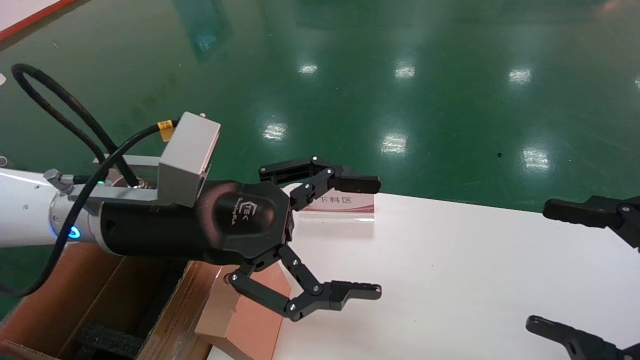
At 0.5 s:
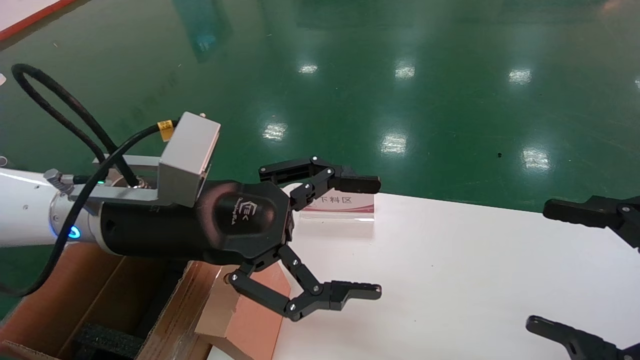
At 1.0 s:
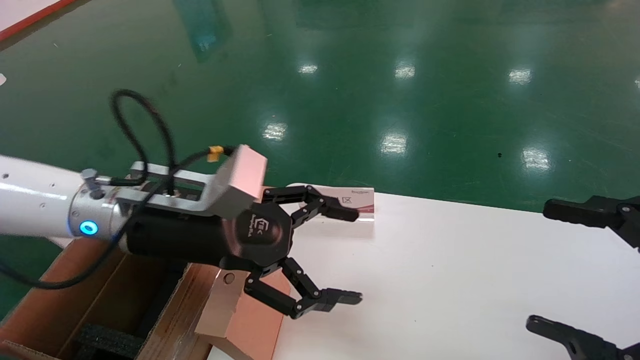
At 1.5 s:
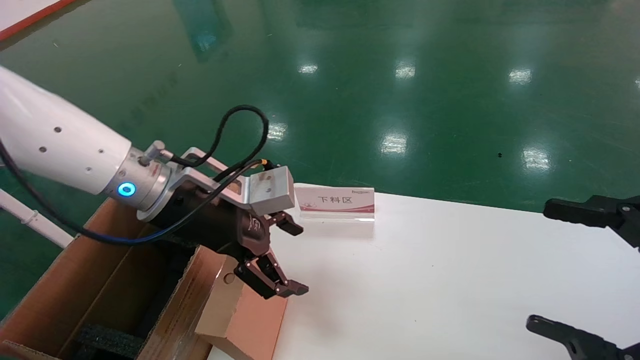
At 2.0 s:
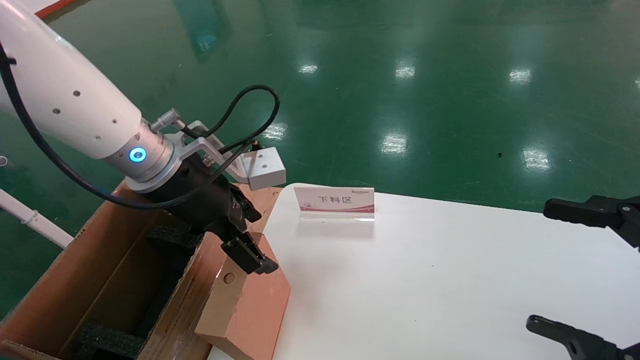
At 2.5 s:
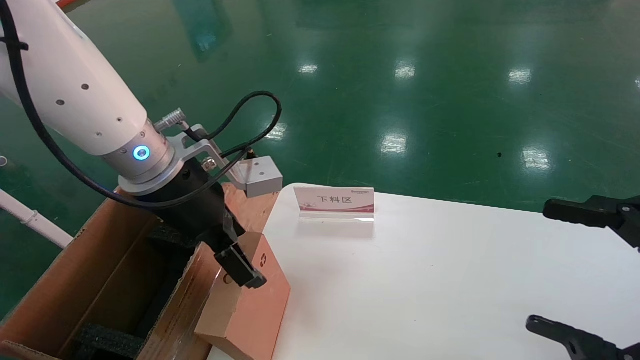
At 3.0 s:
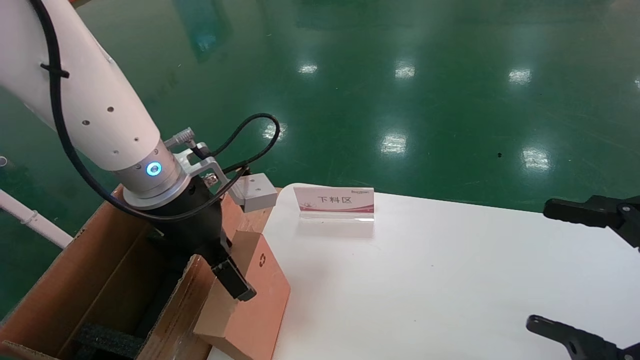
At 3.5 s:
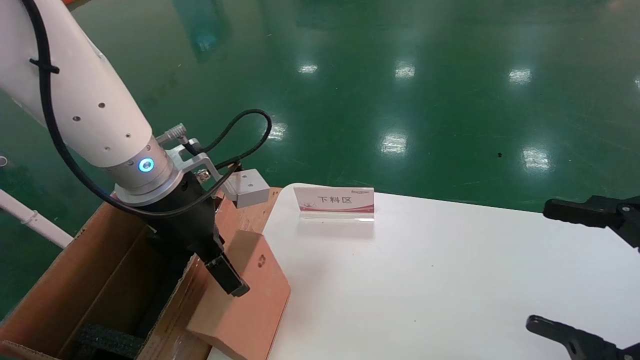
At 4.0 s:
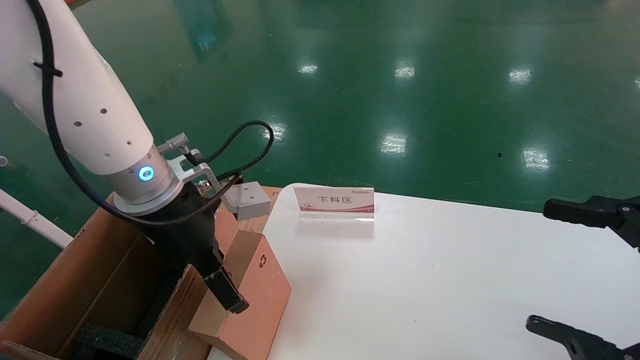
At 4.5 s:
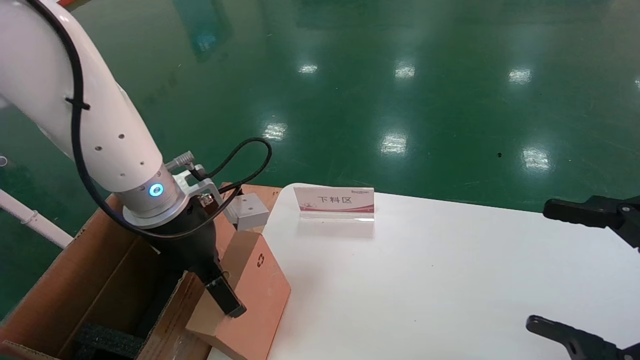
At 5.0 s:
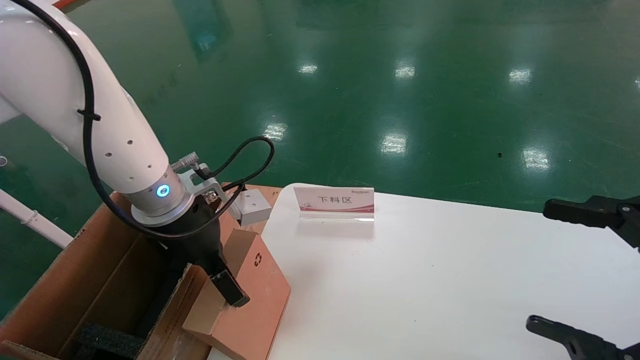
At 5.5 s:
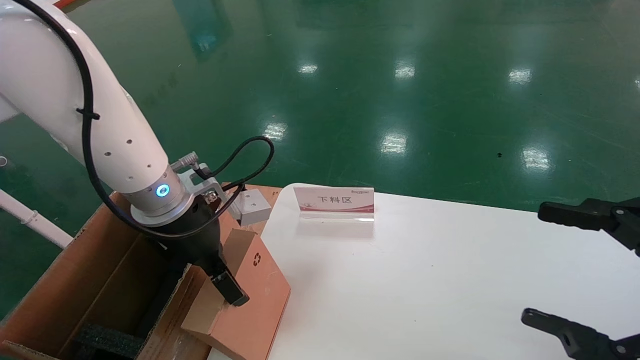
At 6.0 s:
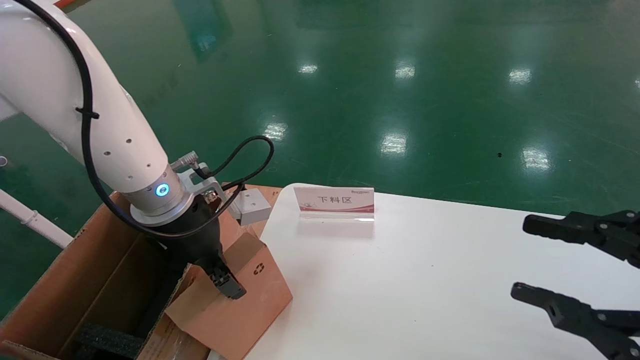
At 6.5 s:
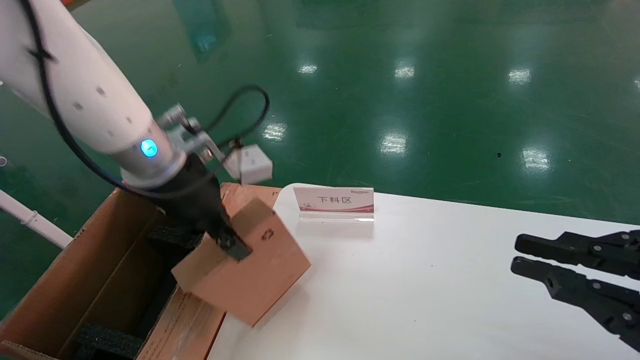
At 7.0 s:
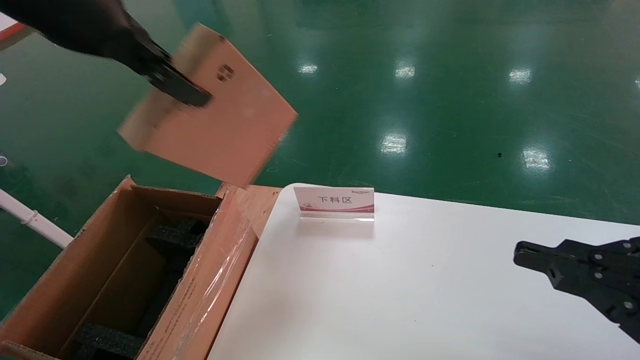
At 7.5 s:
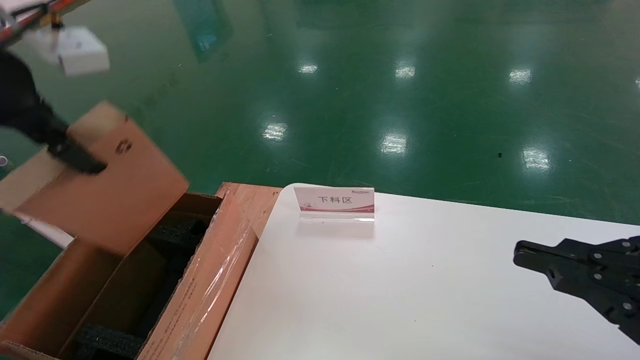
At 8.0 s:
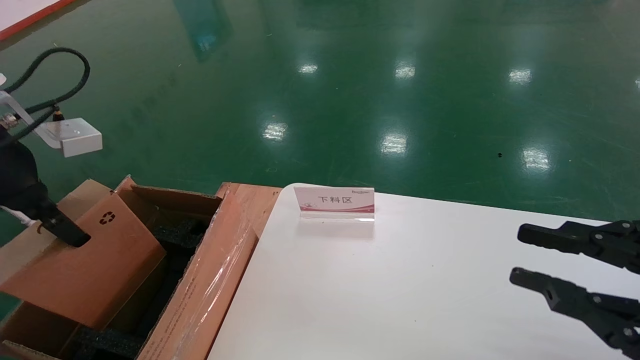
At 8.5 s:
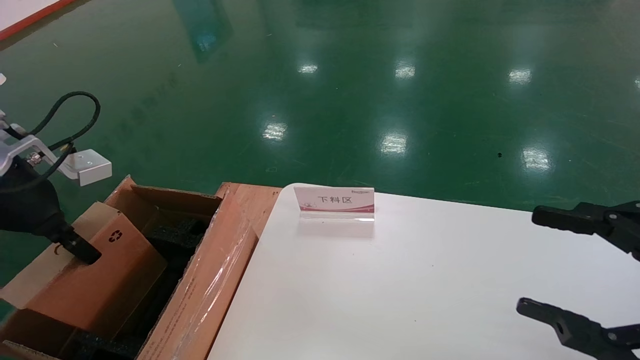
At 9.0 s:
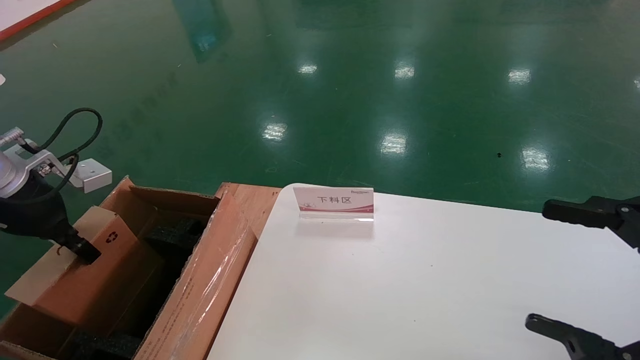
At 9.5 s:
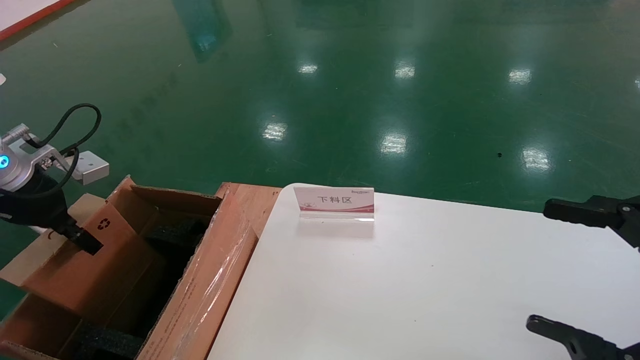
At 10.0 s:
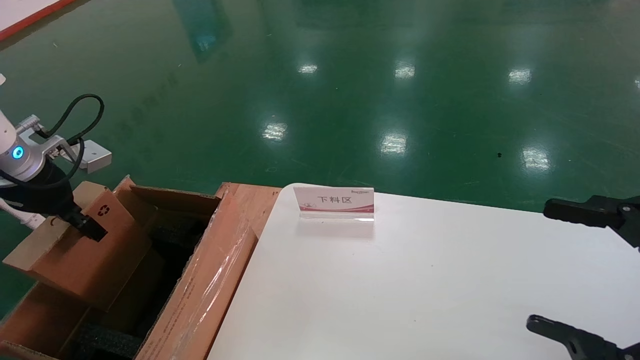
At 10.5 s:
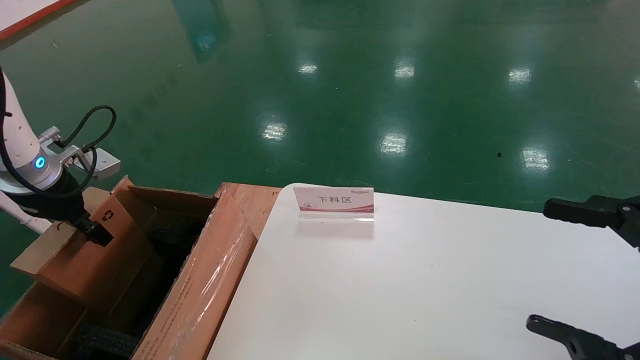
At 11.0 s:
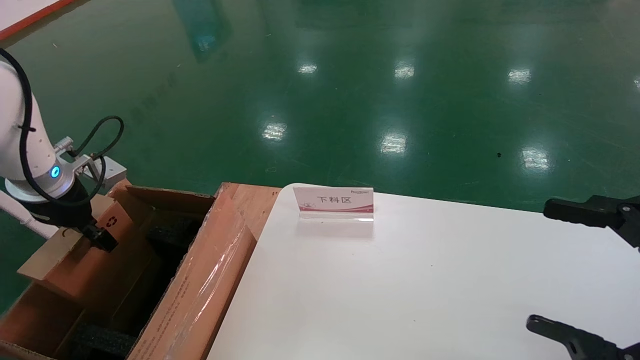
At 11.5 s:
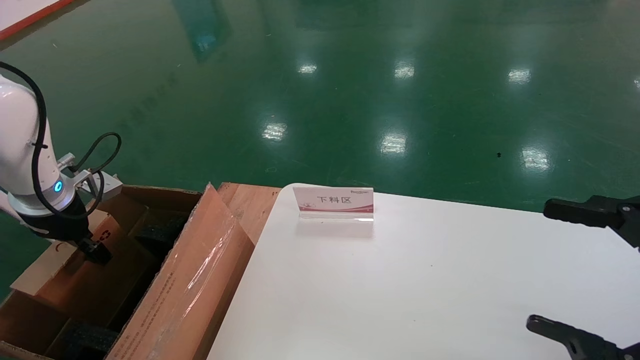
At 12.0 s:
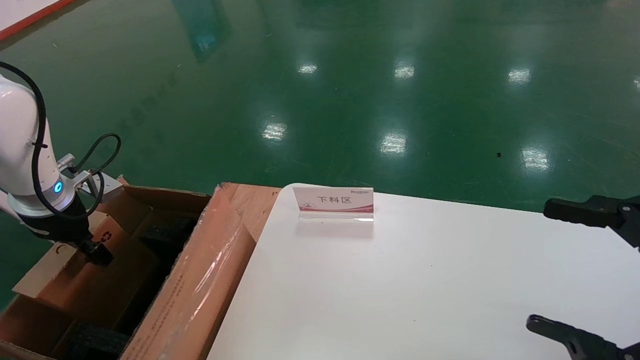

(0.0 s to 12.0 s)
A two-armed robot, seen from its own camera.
Task of the whole recording: pick up the small cardboard box and load it into the large cardboard box.
Step, 1.0 s - 7.0 s: Pick up the mouse and power cord box.
0.0 s - 2.0 s: The left gripper heads forward, covering some 5 cm.
4.0 s - 6.0 s: The left gripper closes up. Meanwhile the right gripper closes its fingers.
6.0 s - 8.0 s: The right gripper closes its fingers. Meanwhile the left gripper shifts roughly 20 cm to the left, upward and backward, and closes.
8.0 s - 10.0 s: The right gripper opens up. Meanwhile the left gripper is displaced downward, forward and to the left by about 15 cm.
10.0 s - 12.0 s: The left gripper goes some 5 cm downward.

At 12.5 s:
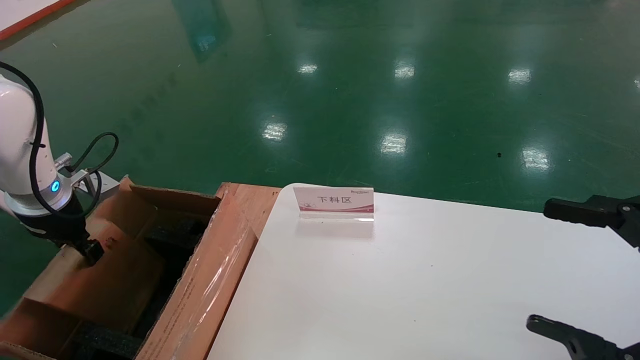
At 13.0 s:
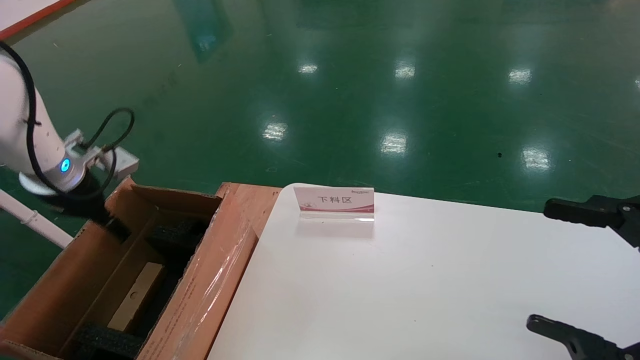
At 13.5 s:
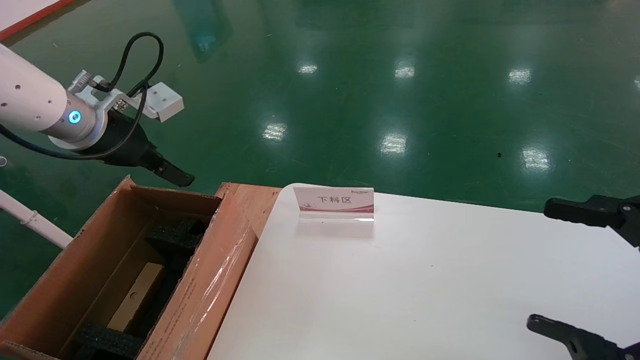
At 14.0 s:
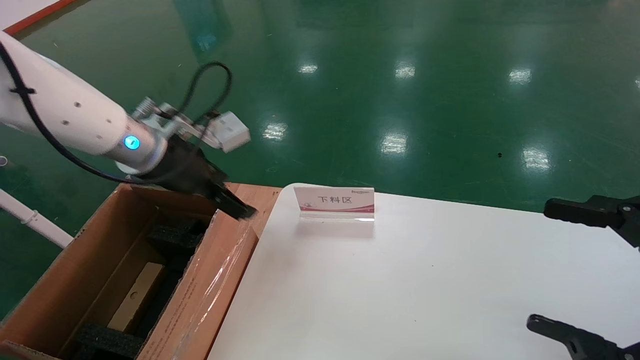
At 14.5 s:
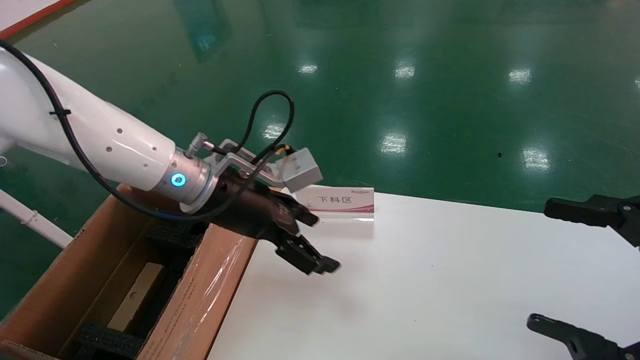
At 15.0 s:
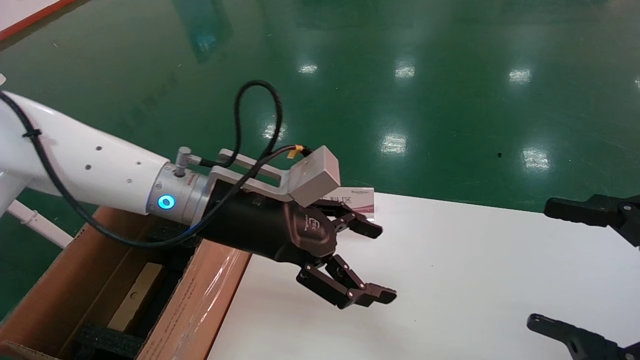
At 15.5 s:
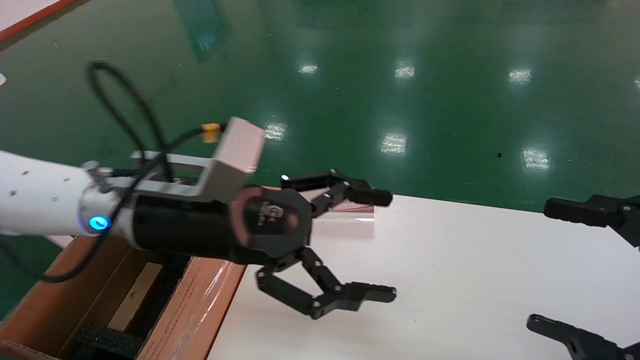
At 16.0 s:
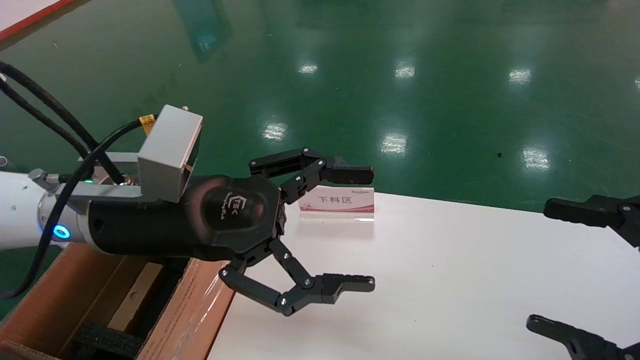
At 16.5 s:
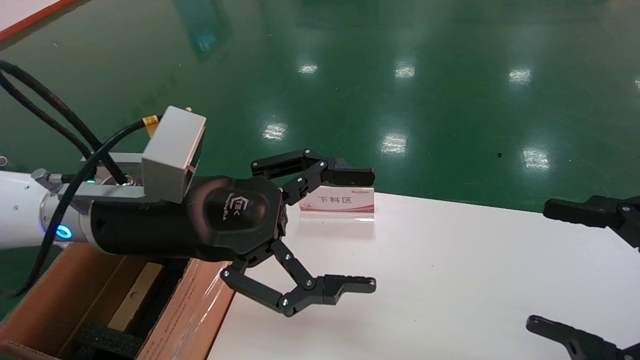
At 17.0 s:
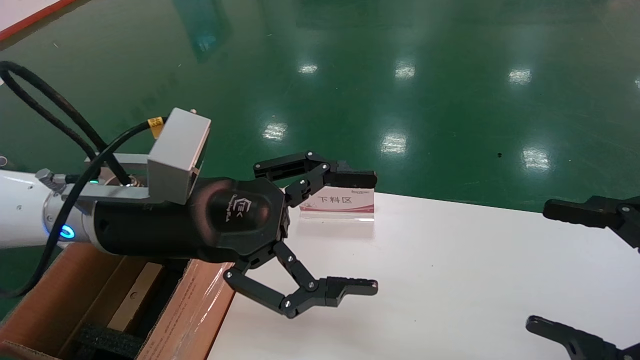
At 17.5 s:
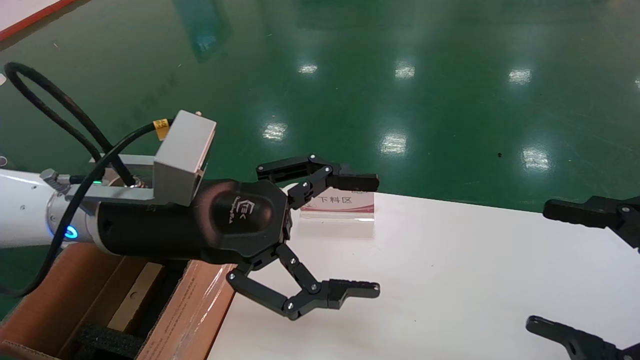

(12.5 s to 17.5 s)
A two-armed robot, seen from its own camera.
Task of the whole recording: pick up the small cardboard box and load it into the large cardboard box.
12.5 s - 15.0 s: The left gripper heads to the right, covering roughly 30 cm, and opens.
15.0 s - 17.5 s: The left gripper shifts about 5 cm backward.
